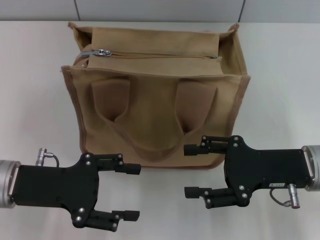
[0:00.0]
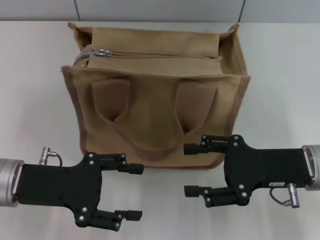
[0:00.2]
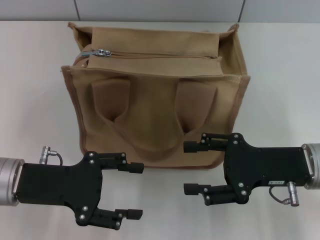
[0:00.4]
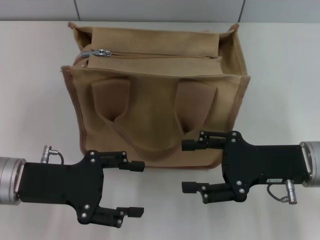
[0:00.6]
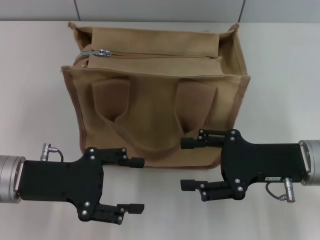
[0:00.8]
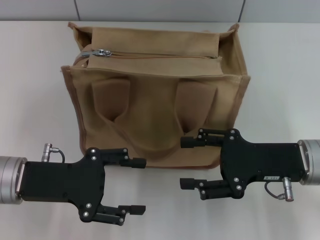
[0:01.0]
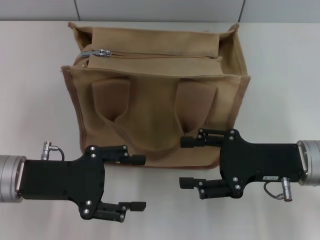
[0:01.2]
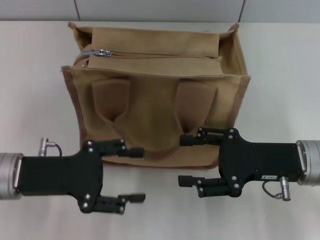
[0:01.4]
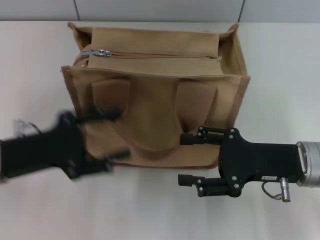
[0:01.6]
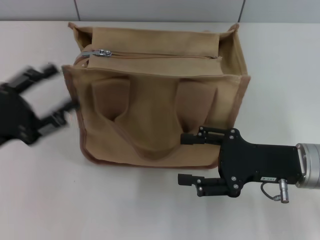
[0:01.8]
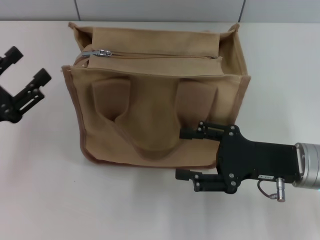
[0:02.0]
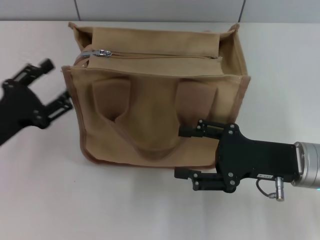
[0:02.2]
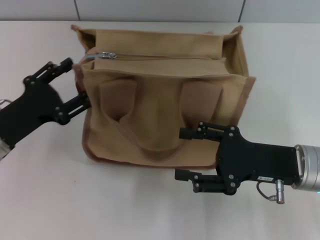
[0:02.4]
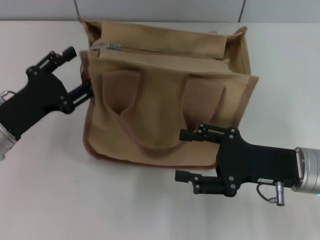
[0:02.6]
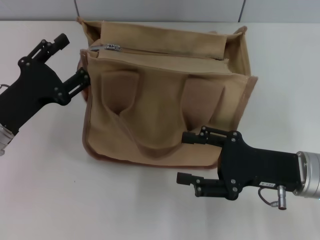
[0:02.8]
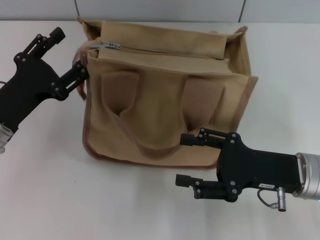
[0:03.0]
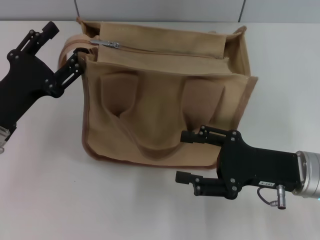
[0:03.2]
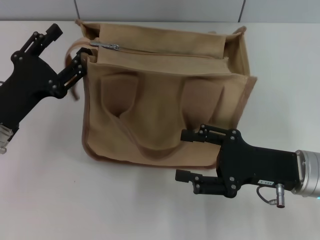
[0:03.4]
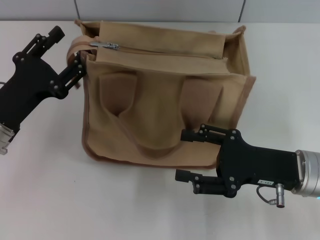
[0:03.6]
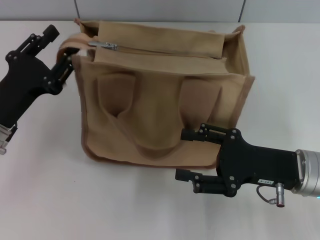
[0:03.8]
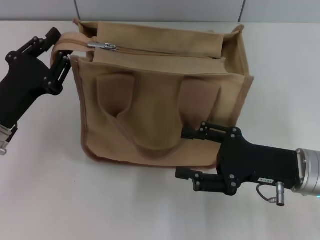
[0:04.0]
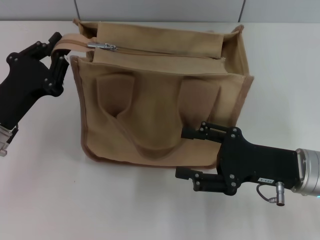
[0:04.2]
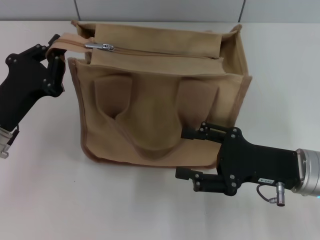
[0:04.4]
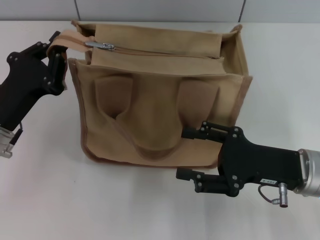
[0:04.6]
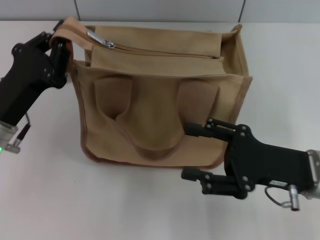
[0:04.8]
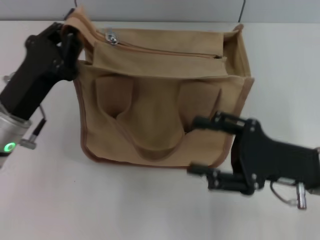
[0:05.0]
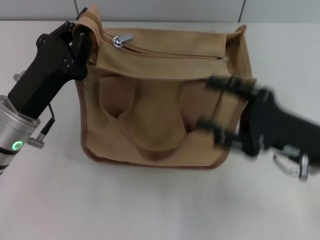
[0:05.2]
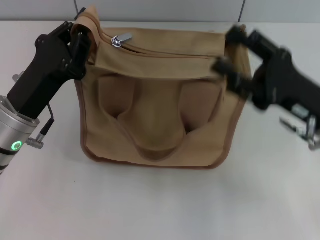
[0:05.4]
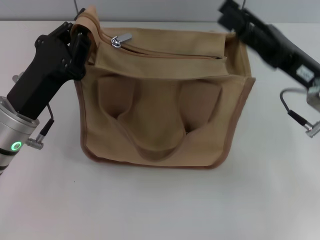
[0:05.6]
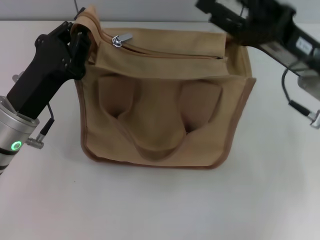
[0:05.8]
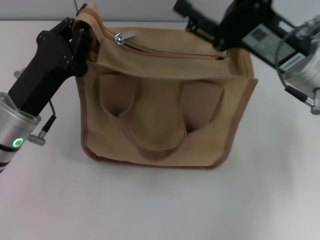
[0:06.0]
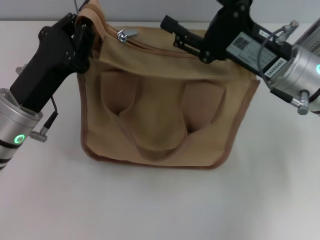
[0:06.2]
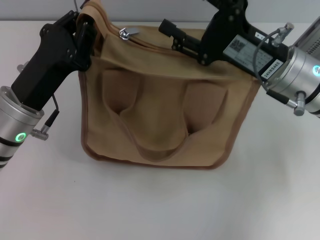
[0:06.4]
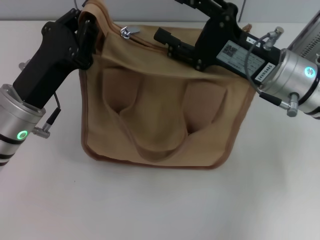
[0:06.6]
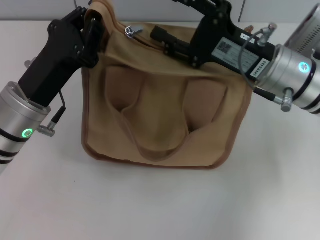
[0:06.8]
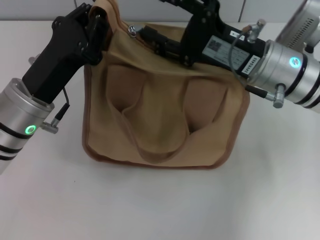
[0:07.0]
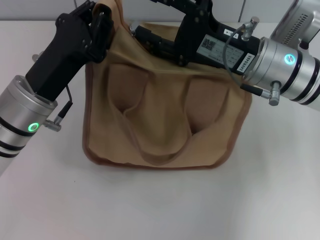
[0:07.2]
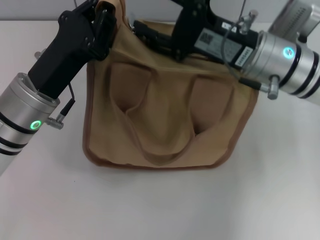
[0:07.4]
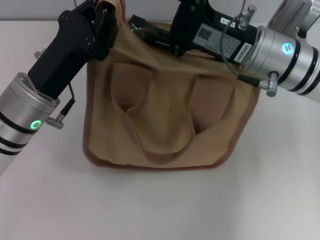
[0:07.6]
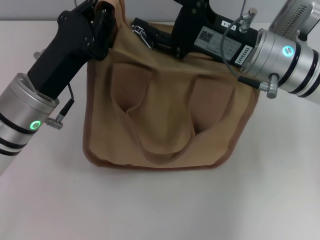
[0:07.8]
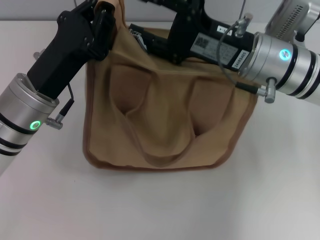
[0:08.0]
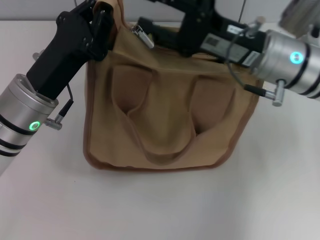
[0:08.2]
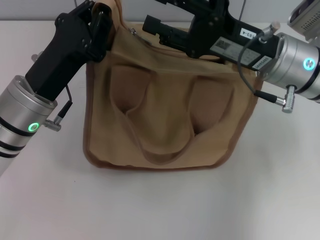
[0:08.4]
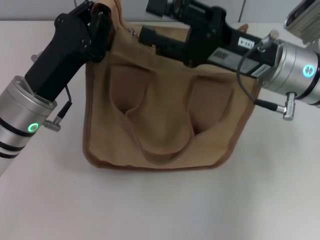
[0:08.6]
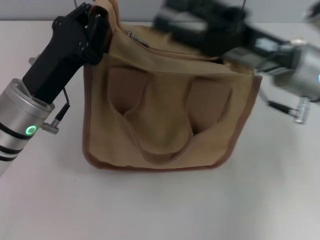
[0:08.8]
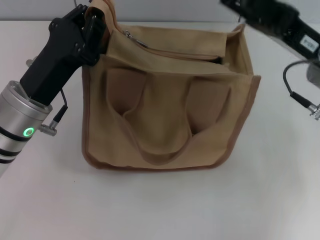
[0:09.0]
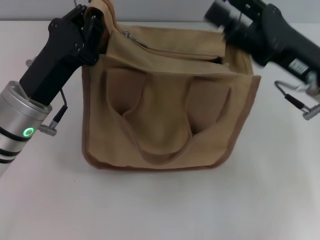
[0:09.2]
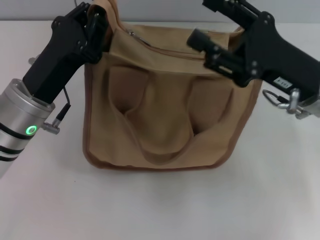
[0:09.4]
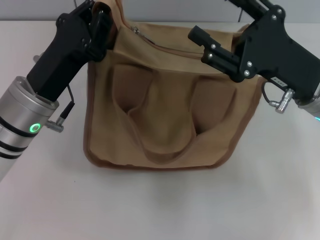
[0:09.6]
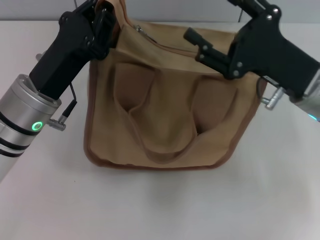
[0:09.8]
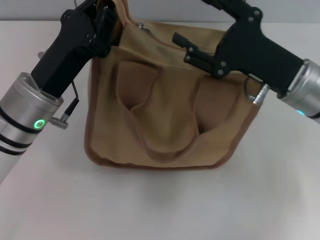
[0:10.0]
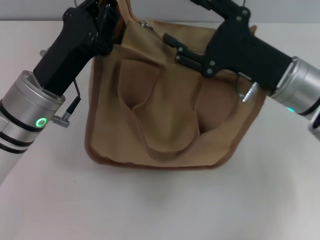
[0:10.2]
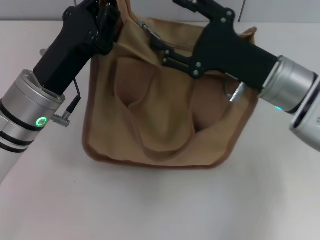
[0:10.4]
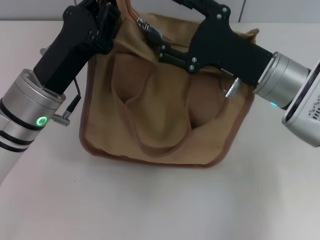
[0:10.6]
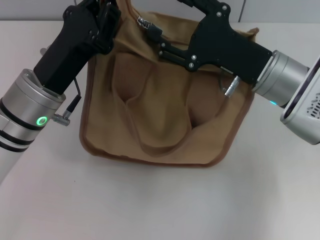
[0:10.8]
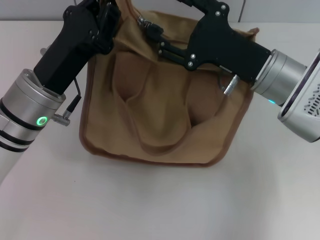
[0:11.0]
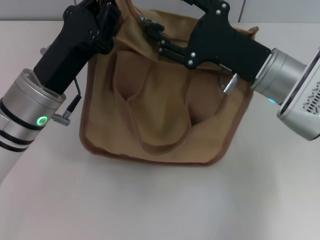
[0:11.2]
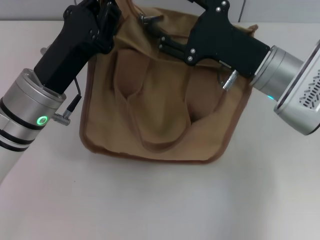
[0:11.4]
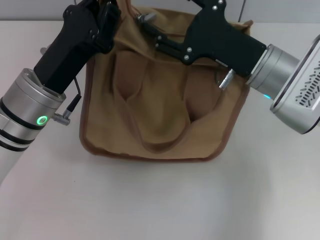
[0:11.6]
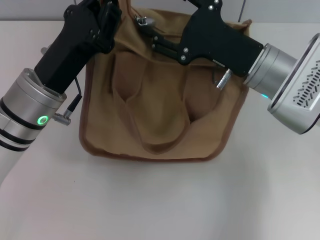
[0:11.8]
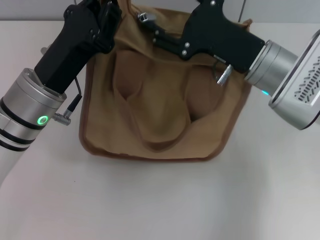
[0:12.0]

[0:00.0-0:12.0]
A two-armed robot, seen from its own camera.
0:03.0 to 0:04.4: The left gripper closes its fingers.
0:04.4 to 0:06.0: The left gripper changes place by about 5 cm, while the right gripper travels forward and upward by roughly 10 cm.
0:07.6 to 0:09.0: The right gripper is displaced to the right by roughly 5 cm.
0:09.0 to 0:10.4: The right gripper changes place by about 5 cm.
0:10.4 to 0:12.0: The grippers stay close to where they were, moving slightly.

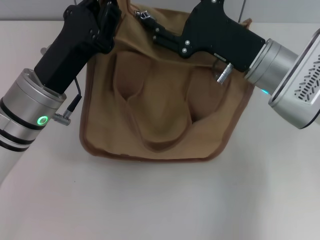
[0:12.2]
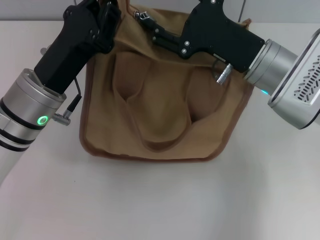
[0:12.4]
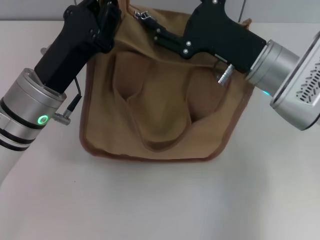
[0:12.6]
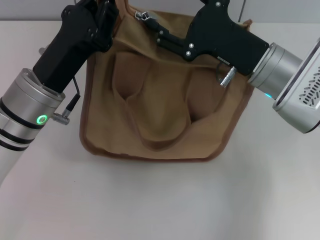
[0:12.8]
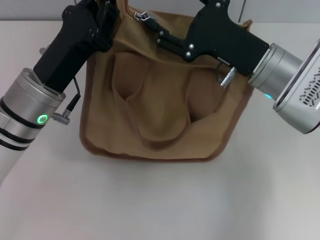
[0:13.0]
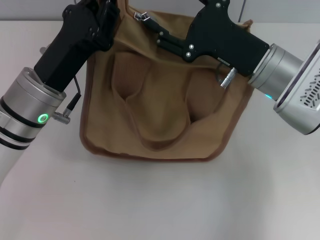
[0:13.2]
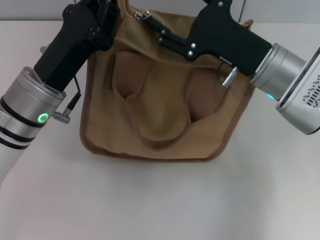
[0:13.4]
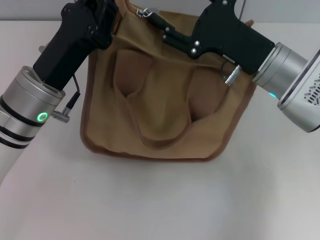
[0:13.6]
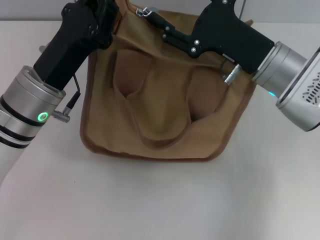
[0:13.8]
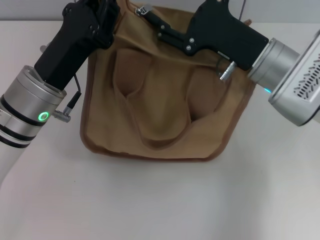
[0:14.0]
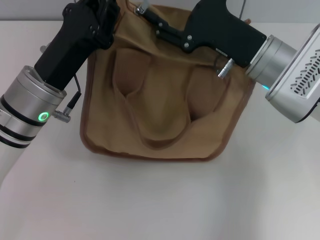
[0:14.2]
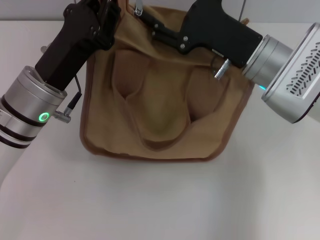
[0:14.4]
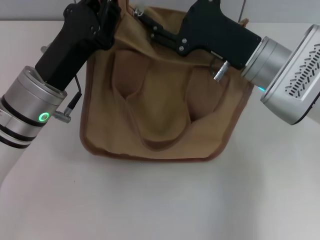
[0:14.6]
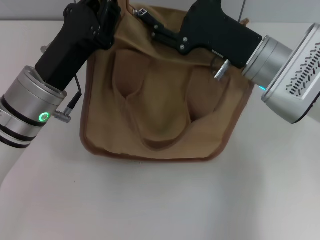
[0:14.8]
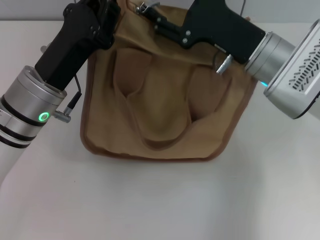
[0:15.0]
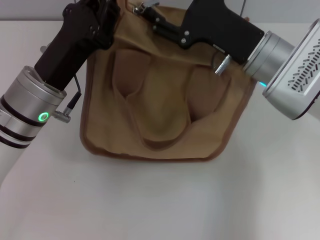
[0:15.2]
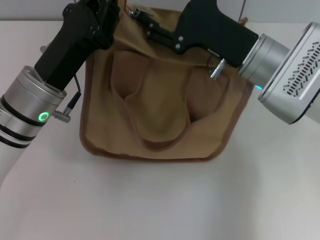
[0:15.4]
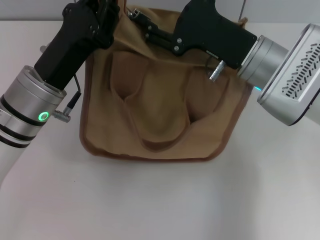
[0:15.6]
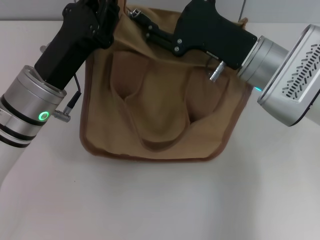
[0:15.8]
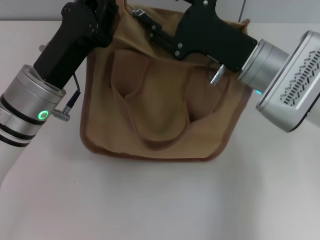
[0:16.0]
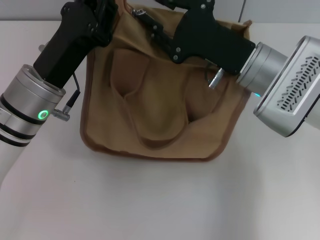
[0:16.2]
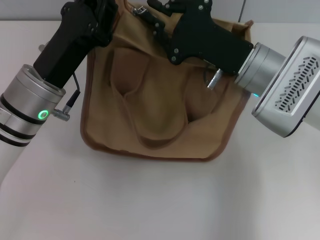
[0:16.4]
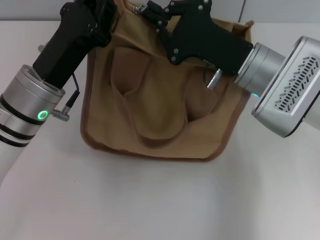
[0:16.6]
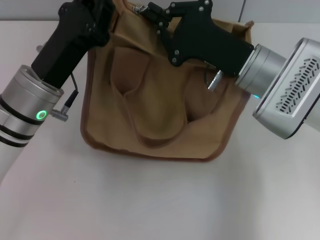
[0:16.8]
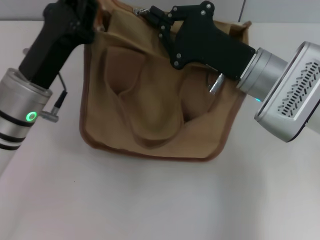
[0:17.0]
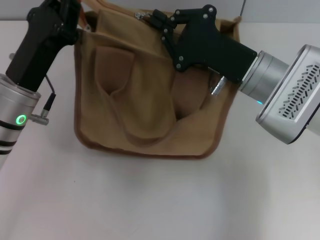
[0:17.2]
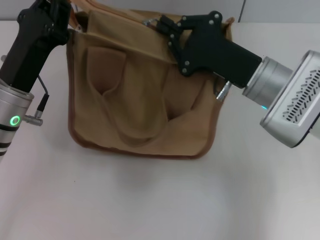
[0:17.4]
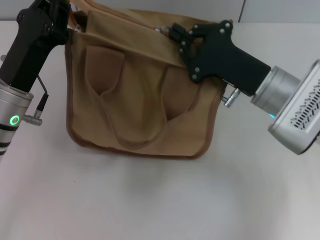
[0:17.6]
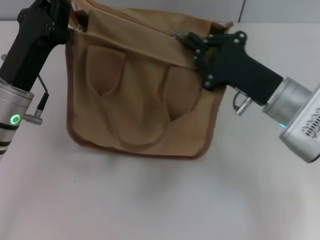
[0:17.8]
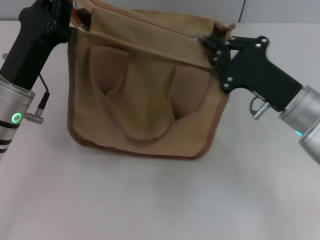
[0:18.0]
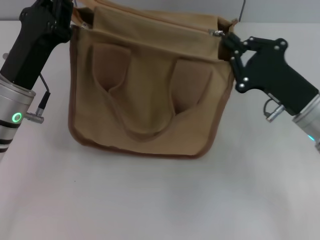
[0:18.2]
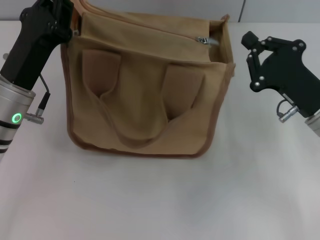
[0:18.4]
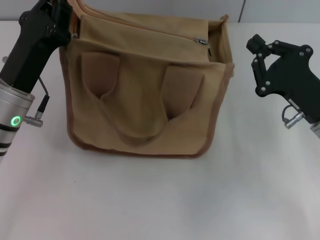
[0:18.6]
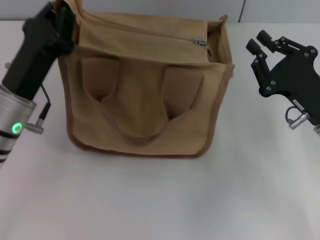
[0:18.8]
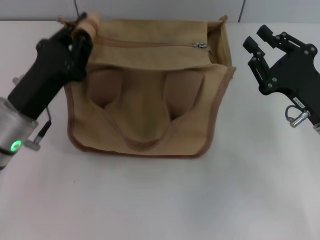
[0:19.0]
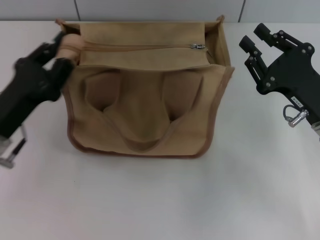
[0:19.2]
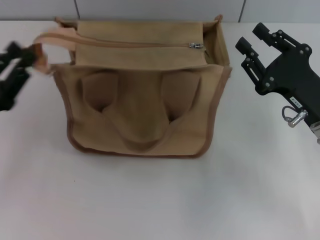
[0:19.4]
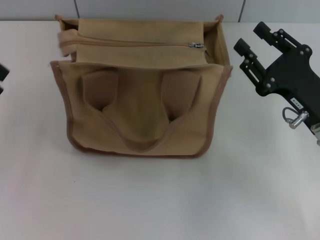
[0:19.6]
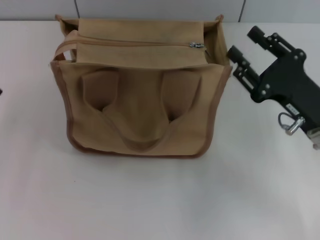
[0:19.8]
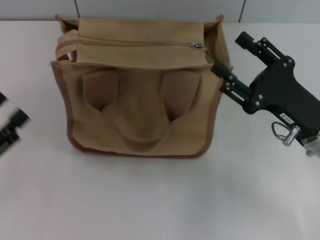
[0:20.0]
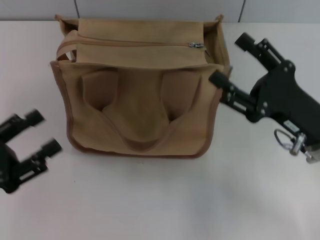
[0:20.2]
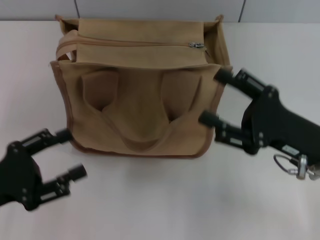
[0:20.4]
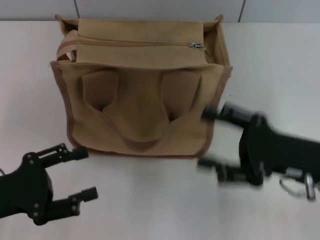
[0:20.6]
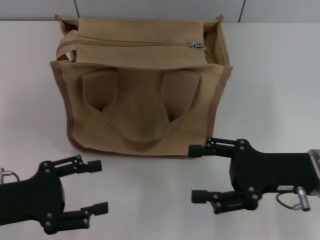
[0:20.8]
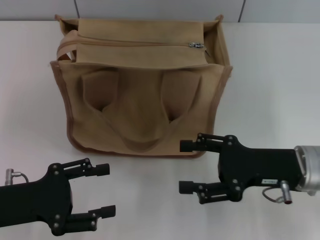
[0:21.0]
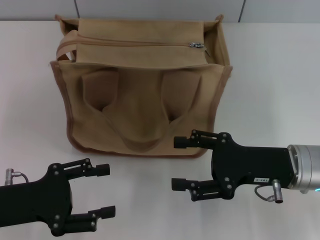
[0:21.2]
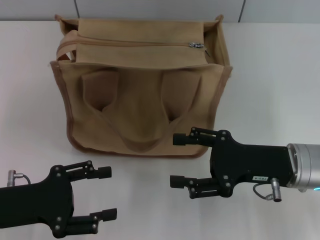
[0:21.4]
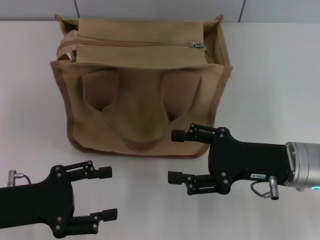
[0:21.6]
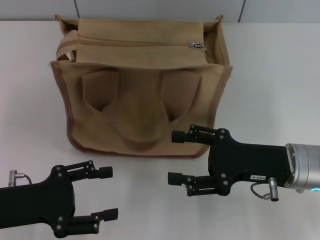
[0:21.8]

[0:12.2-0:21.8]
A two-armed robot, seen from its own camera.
Step, 0:12.2 to 0:18.2: Pull up the zipper with your right hand.
Step, 0:18.4 to 0:19.6: Grab the zipper with your left hand.
0:12.2 to 0:13.8: The two grippers keep their place.
0:13.8 to 0:15.4: The grippers stay close to where they were, moving slightly.
0:15.4 to 0:17.0: The right gripper closes up.
0:17.0 to 0:18.6: The right gripper travels to the right, backward and downward by some 10 cm.
0:18.6 to 0:20.2: The right gripper opens; the left gripper goes approximately 15 cm backward and to the left, and opens up.

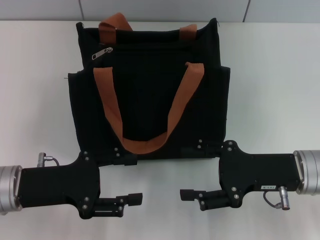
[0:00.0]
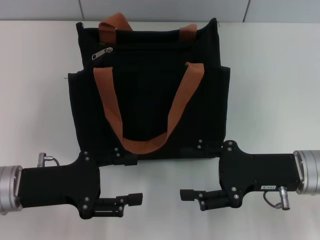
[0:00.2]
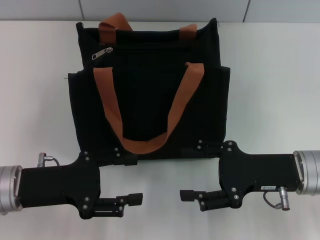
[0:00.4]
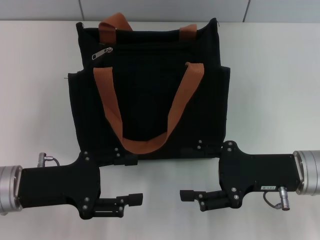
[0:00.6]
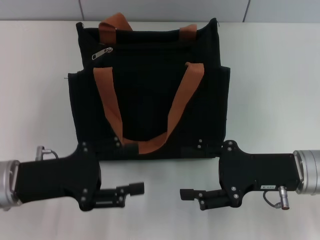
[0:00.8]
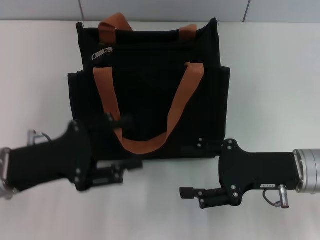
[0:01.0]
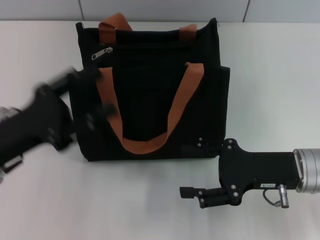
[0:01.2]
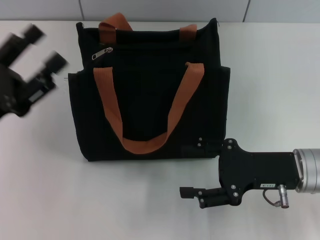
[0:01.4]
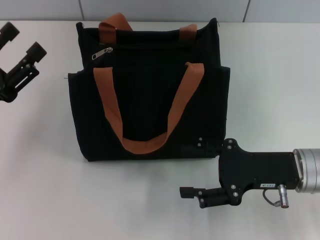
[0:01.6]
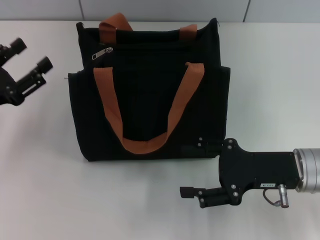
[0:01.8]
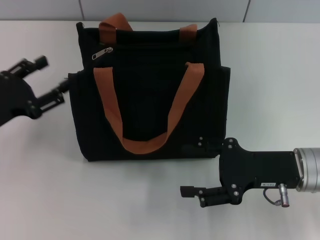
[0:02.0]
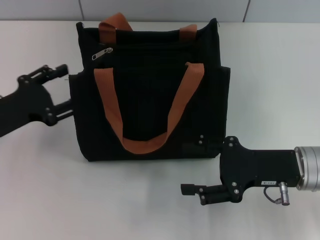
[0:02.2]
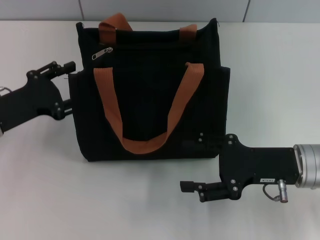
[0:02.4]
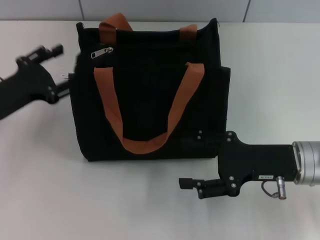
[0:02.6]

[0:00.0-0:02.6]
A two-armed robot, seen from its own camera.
0:01.2 to 0:02.6: The left gripper shifts some 5 cm forward.
